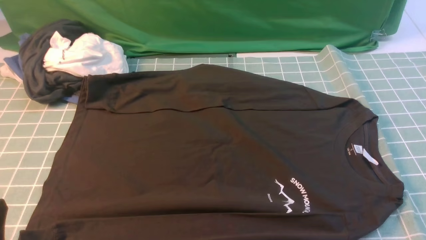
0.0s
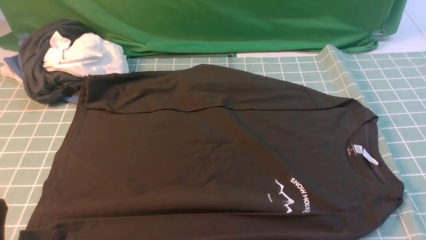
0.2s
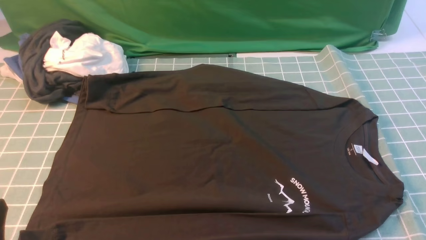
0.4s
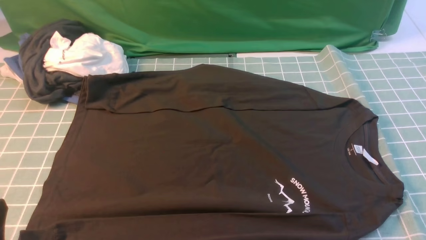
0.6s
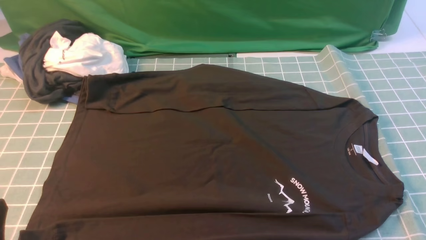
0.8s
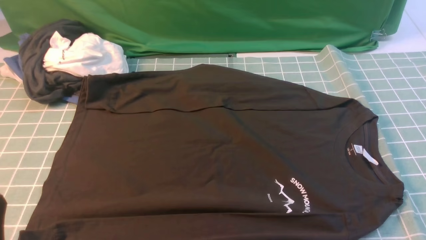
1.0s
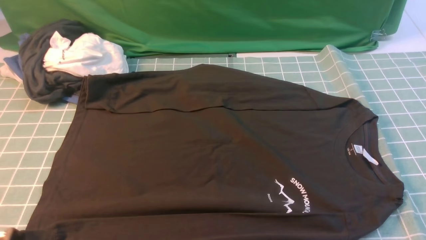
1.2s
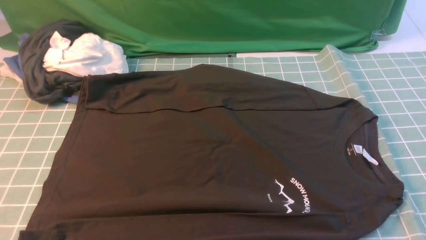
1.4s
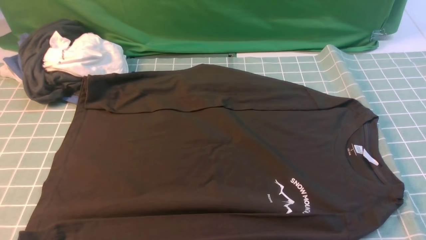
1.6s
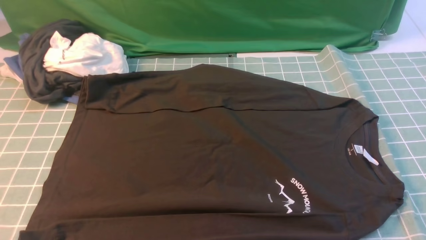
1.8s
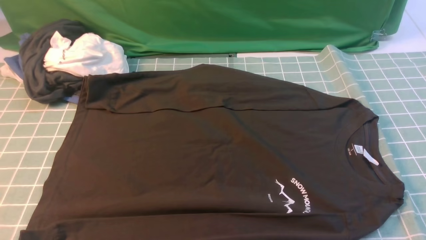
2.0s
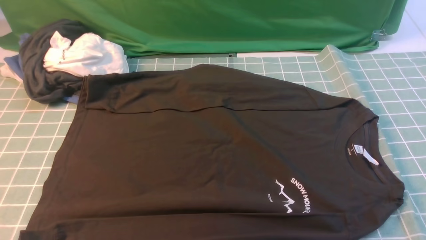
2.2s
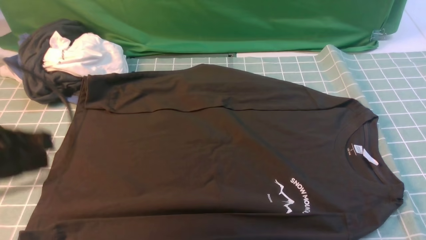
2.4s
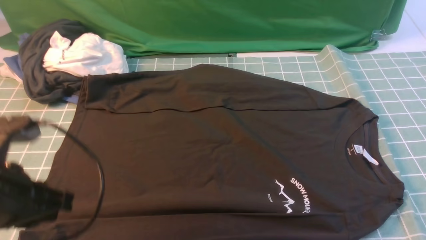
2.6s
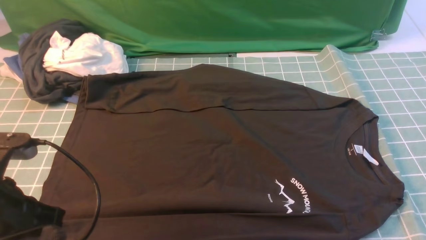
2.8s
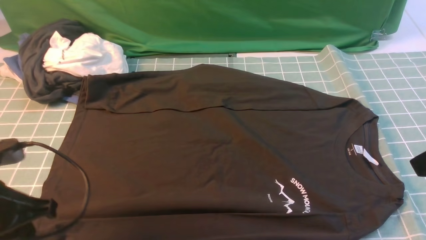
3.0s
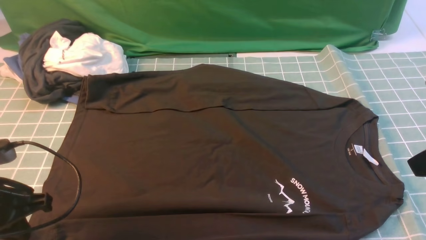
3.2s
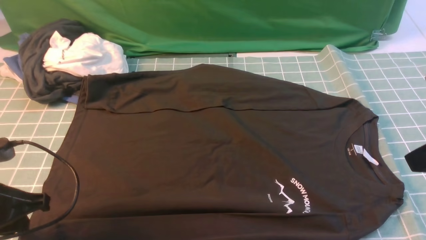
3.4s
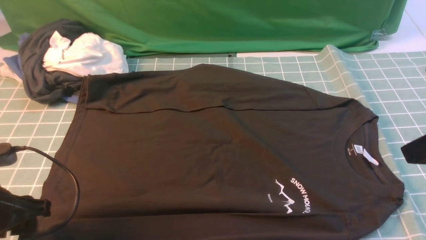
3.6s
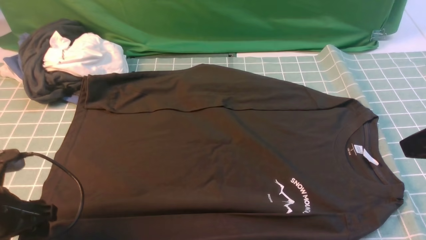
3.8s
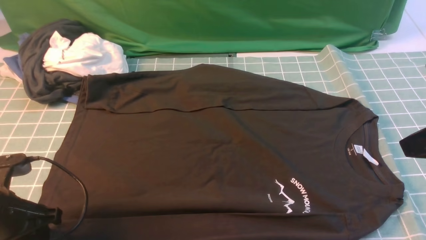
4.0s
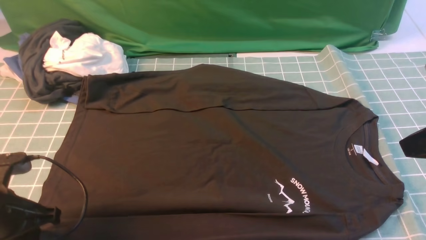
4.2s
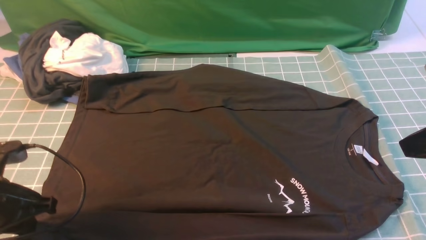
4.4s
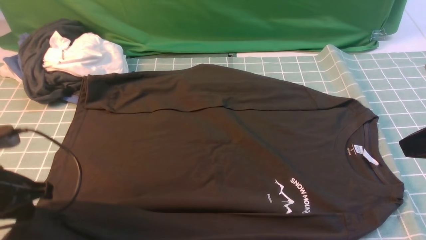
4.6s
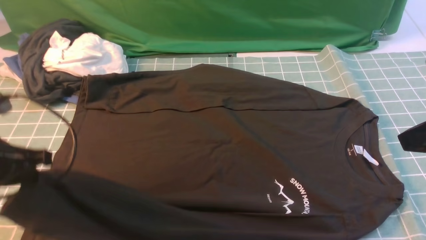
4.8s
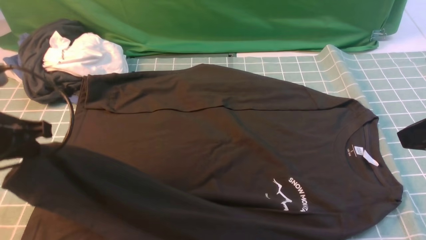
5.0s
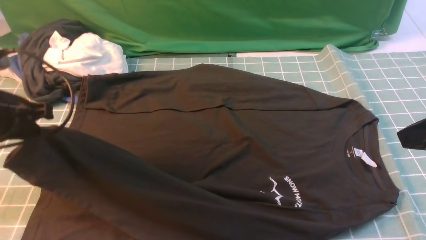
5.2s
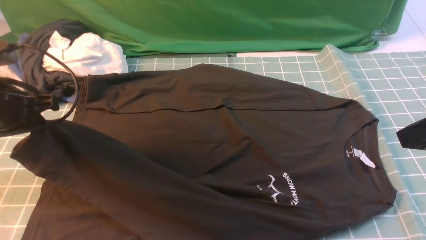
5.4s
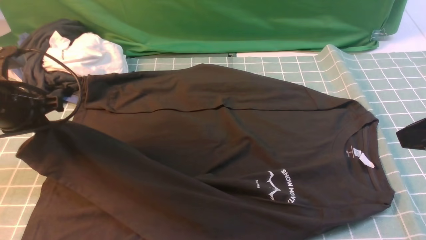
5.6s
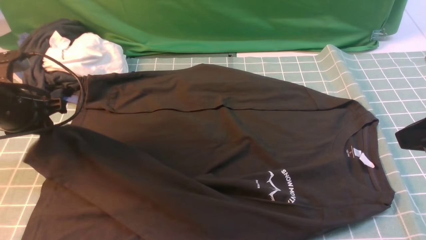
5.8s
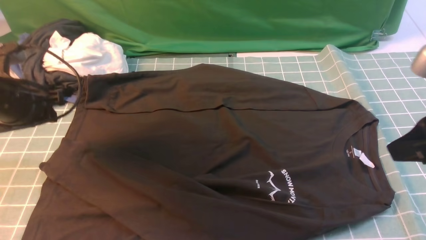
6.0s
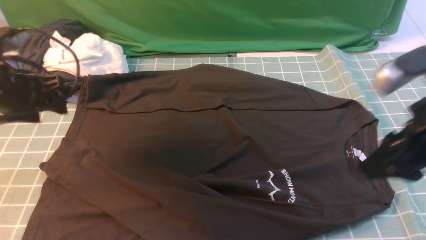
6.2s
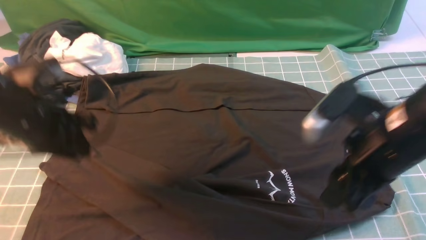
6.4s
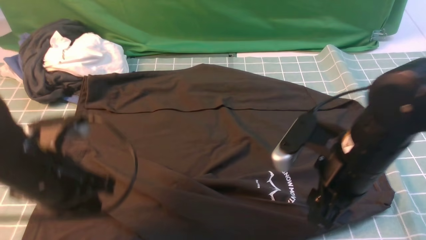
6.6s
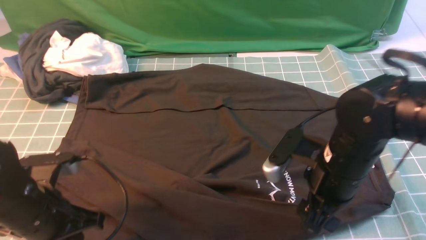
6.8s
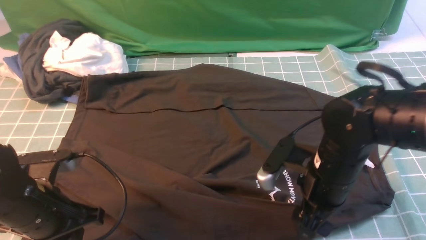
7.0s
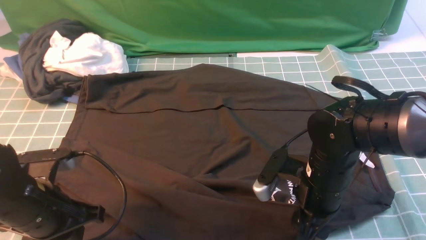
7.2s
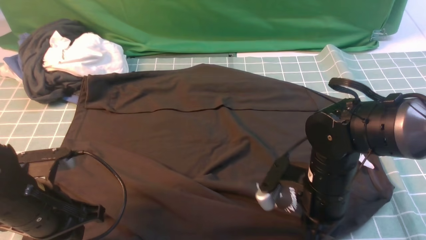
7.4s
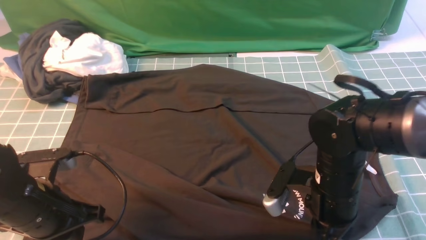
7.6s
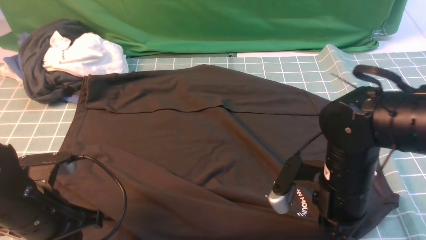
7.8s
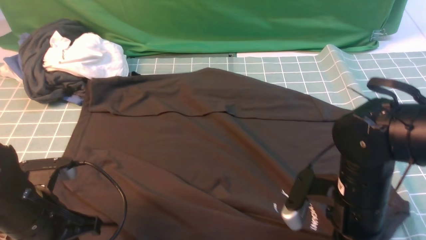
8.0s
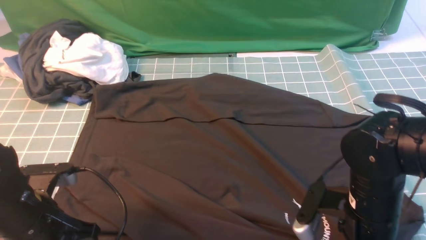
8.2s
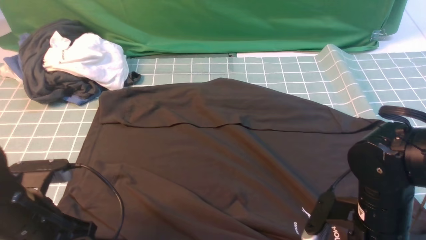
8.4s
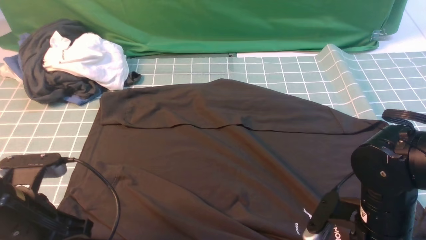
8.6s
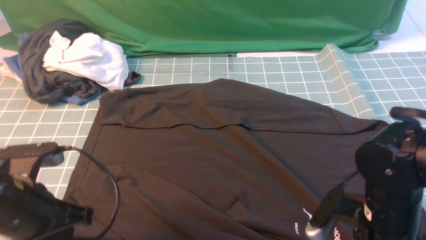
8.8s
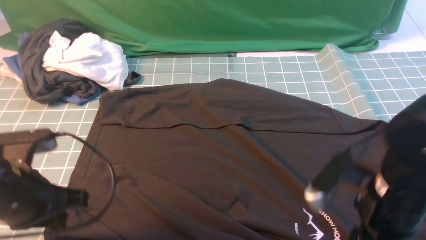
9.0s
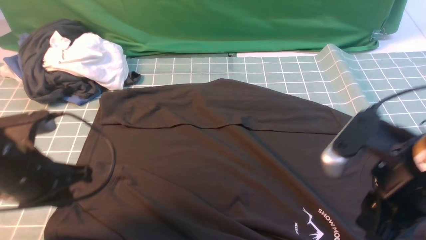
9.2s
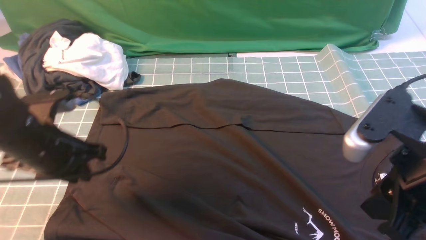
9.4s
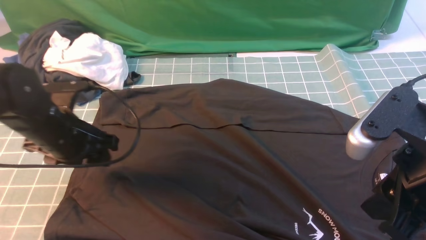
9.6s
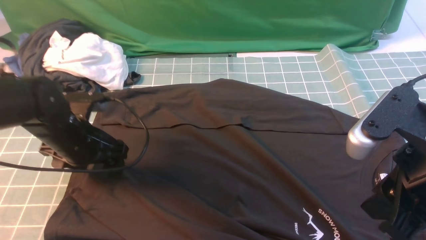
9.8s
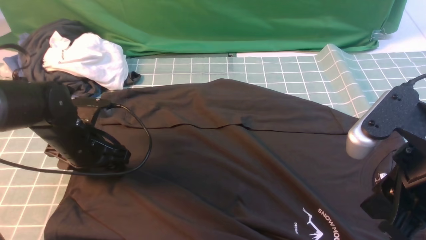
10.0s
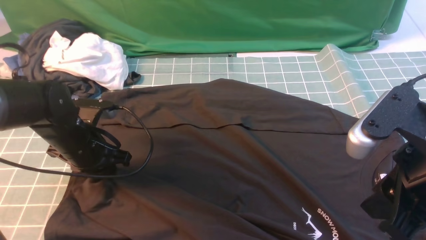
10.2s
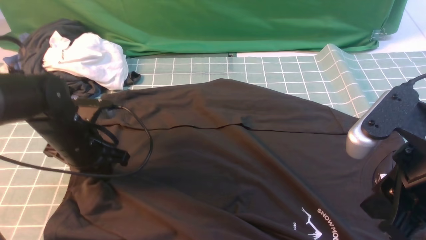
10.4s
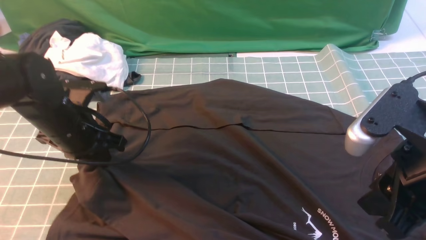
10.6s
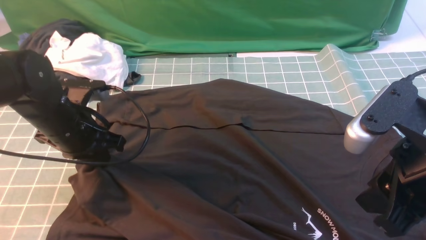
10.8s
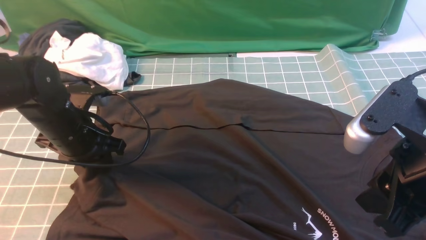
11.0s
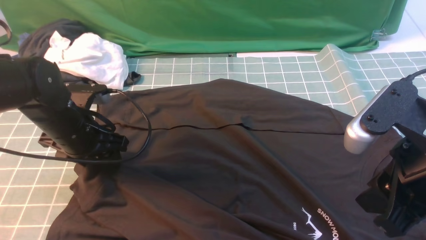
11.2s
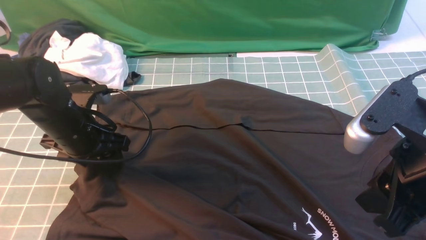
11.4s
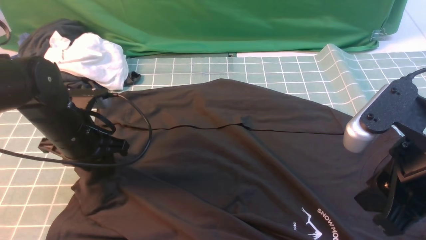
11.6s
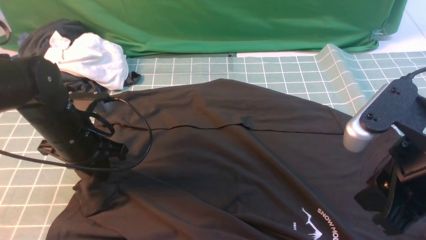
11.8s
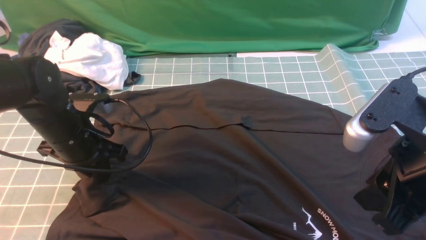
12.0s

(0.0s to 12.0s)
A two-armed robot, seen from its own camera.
Step, 0.0s - 4.4s: use the left arm to clamp the cuff closest to it.
Step, 4.6s - 6.2s: use the left arm to drag and place the cuff at the centered position on the left edge of the fabric.
1.6s - 3.0s: The left gripper shifts about 15 cm forward, and moves some 10 cm upward and comes back.
3.0s - 4.4s: The left gripper opens, then closes once more.
4.4s - 6.0s: The right gripper opens up. Meanwhile the left gripper is displaced forward and upward by some 15 cm, and opens its fingers.
6.0s - 7.6s: The left gripper is displaced backward, to the right and downward by about 15 cm, and closes; the right gripper heads downward and to the left, covering about 20 cm, and closes up.
7.6s - 9.0s: The right gripper travels upward by about 5 cm, and opens up.
9.0s - 10.4s: The left gripper is displaced forward and downward by roughly 15 cm, and opens, then closes once more, while the right gripper shifts about 10 cm upward.
10.4s - 12.0s: The left gripper opens and closes again.

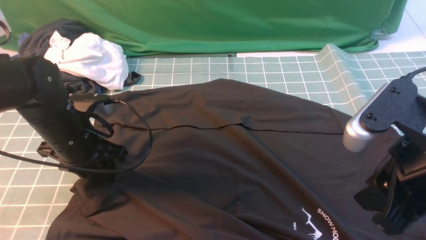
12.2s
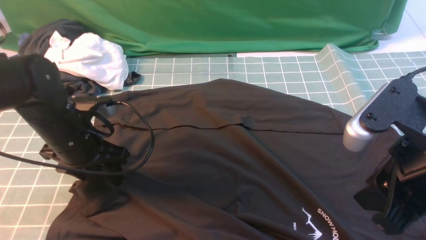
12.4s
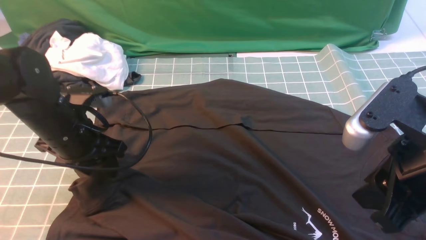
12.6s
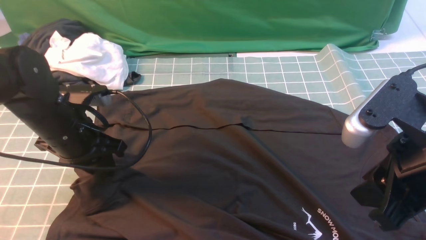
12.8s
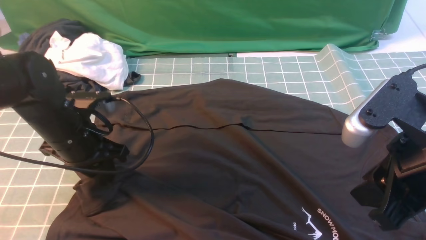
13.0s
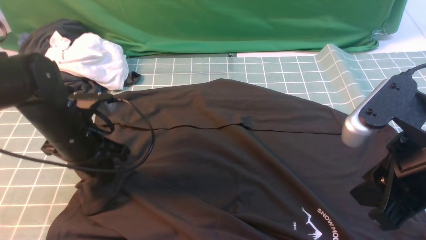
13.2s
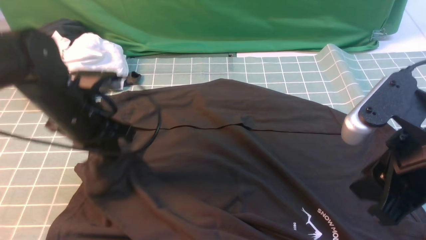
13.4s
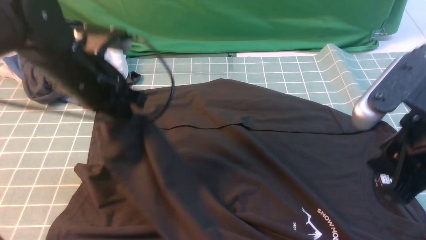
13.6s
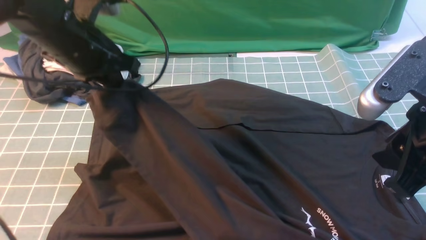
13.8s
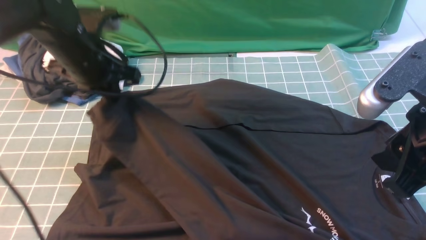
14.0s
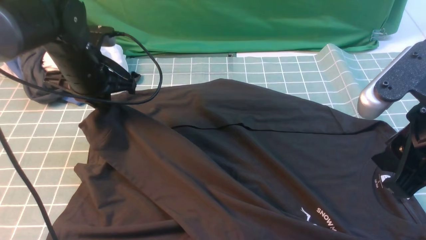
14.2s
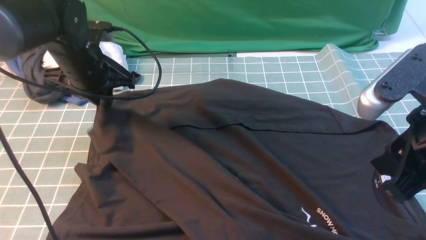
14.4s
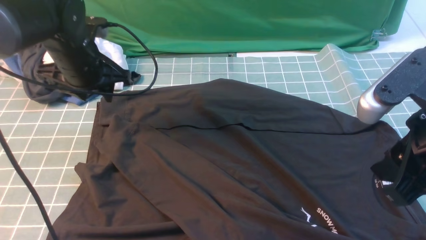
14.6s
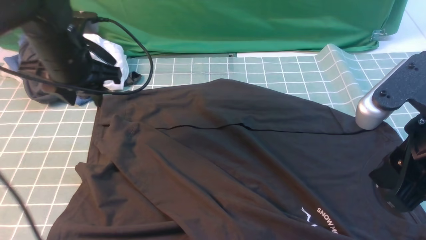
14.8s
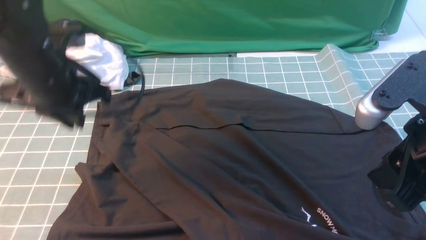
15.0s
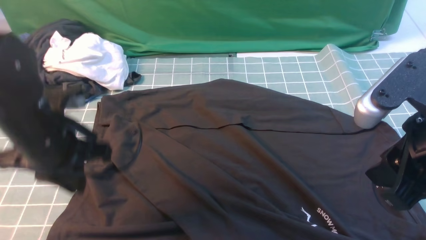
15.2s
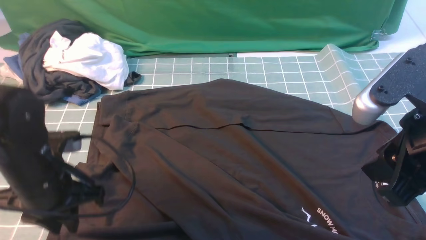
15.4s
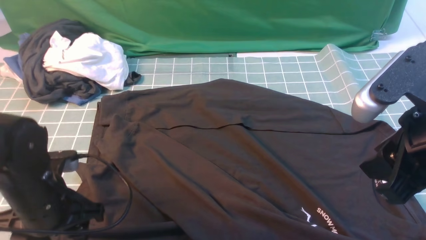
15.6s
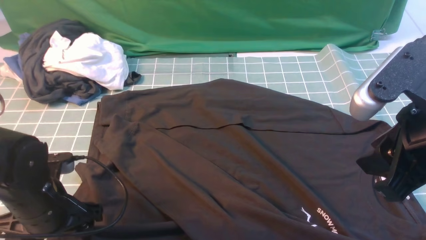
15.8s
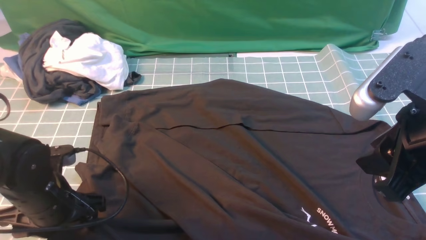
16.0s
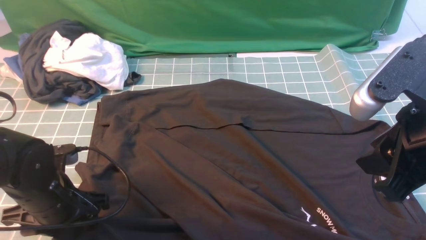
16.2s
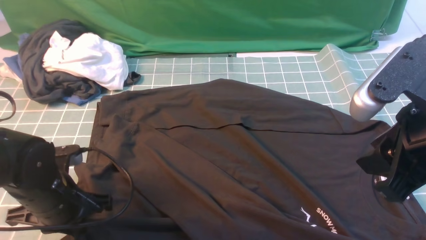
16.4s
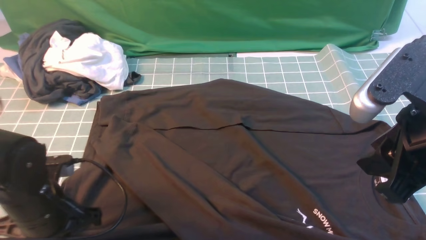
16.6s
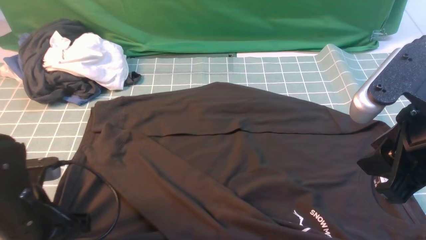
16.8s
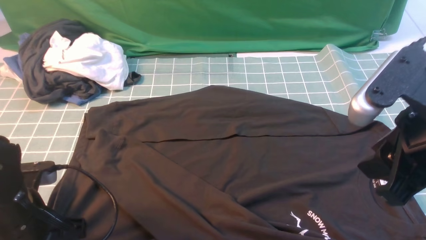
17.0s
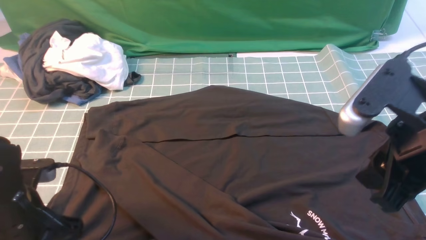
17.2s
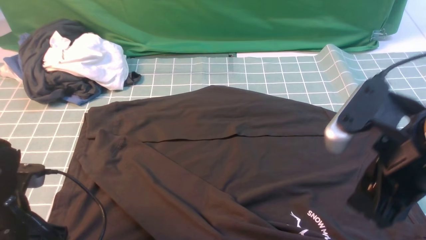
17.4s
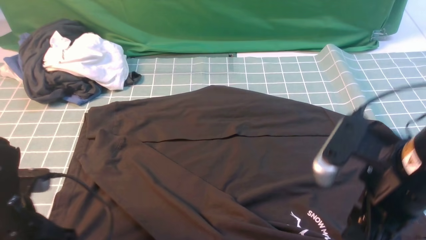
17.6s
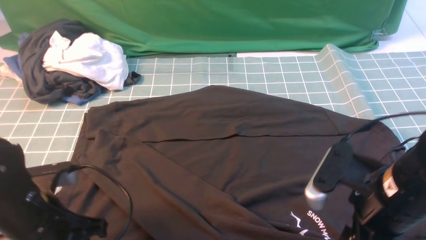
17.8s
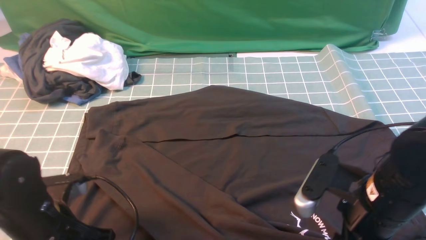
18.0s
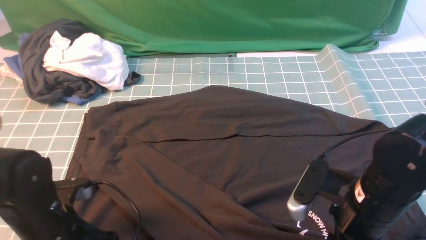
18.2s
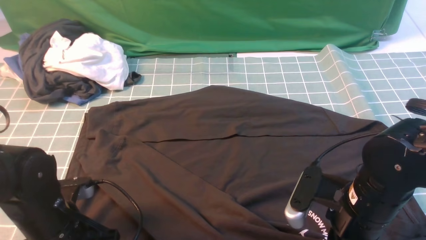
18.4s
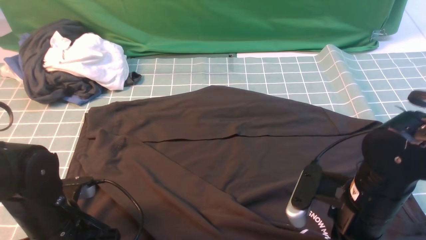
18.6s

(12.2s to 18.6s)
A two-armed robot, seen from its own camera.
12.2s - 13.8s: The left gripper shifts some 10 cm upward and forward, and closes its fingers.
13.8s - 15.4s: The left gripper heads backward and downward, covering some 15 cm, and opens.
15.4s - 17.0s: The left gripper moves backward, roughly 5 cm, and closes its fingers.
17.0s - 18.6s: The right gripper goes about 15 cm downward, and closes up. Meanwhile the left gripper changes place by roughly 5 cm, and opens, then closes again.
